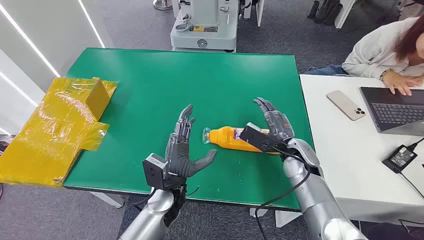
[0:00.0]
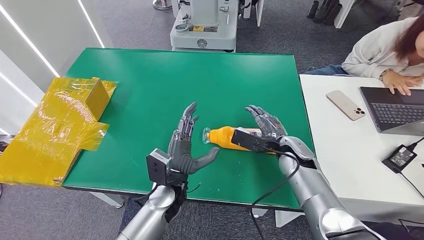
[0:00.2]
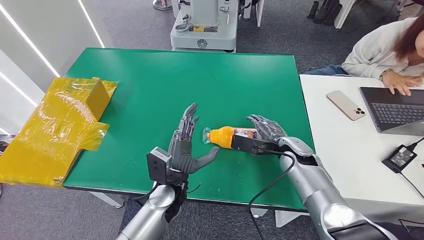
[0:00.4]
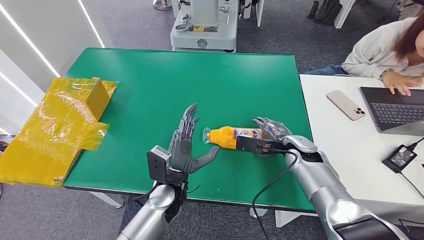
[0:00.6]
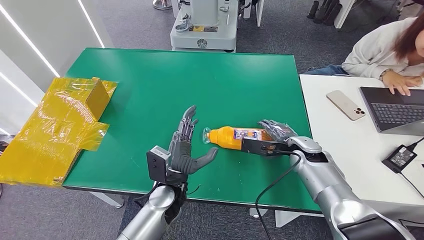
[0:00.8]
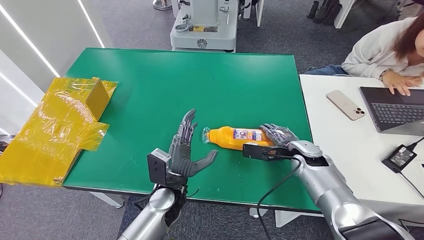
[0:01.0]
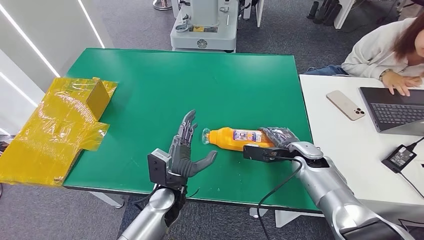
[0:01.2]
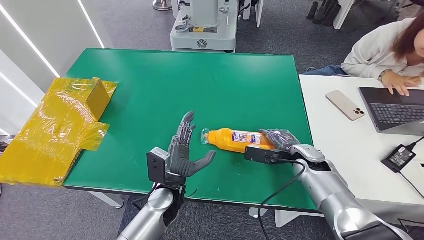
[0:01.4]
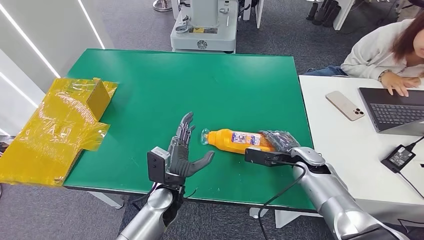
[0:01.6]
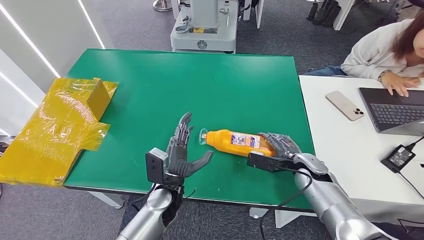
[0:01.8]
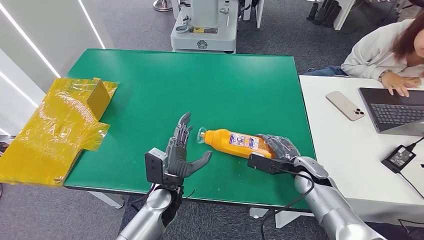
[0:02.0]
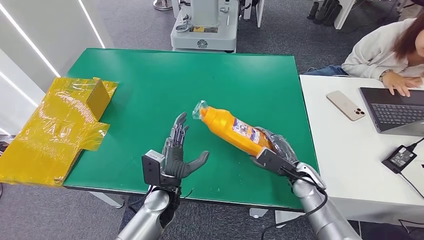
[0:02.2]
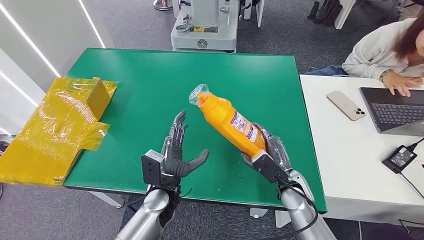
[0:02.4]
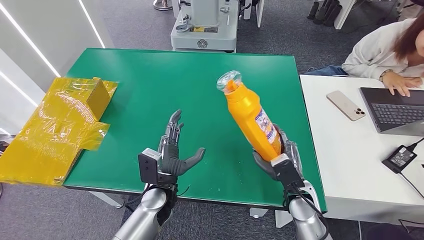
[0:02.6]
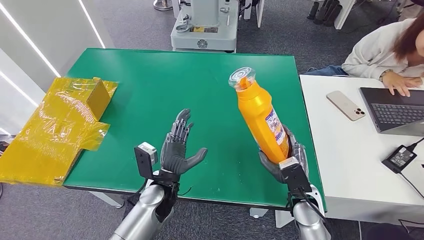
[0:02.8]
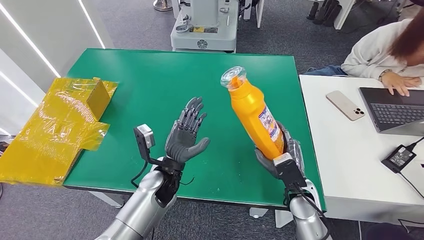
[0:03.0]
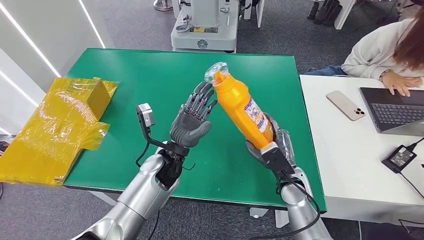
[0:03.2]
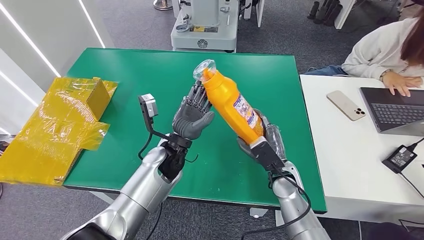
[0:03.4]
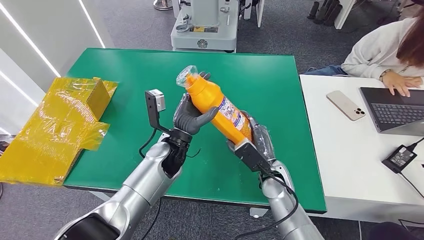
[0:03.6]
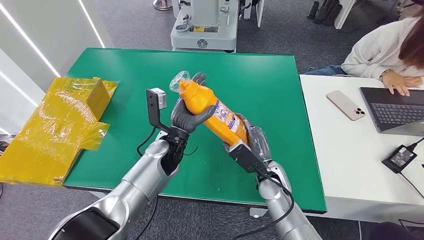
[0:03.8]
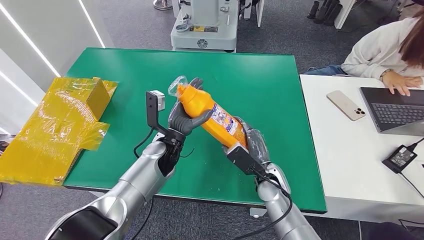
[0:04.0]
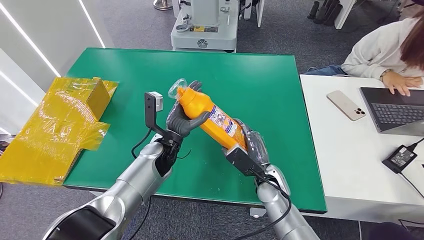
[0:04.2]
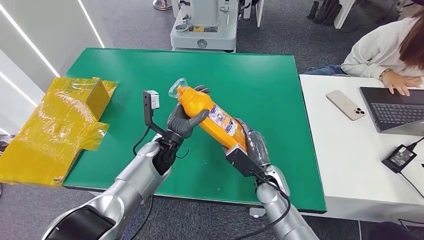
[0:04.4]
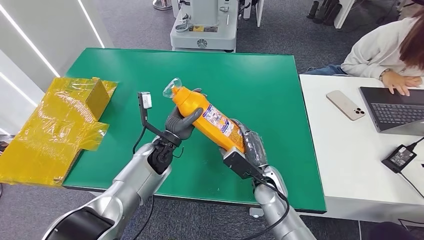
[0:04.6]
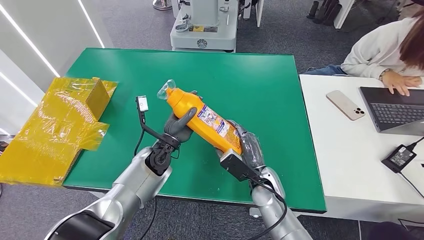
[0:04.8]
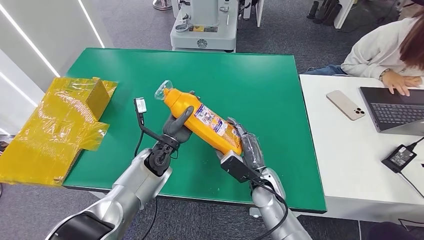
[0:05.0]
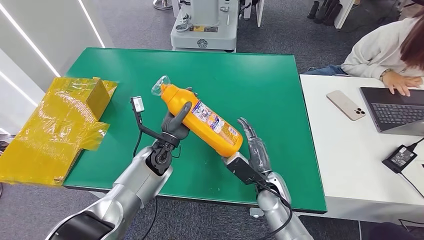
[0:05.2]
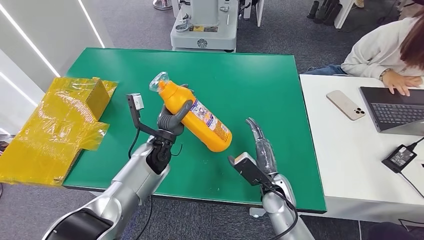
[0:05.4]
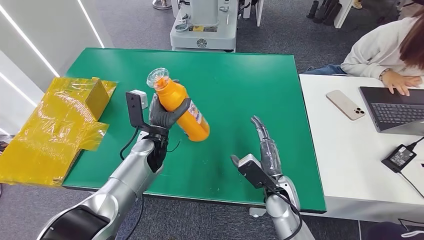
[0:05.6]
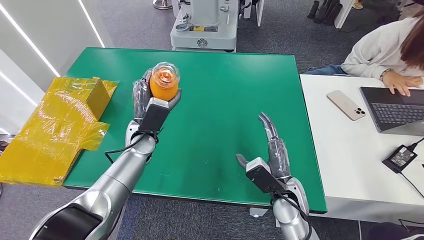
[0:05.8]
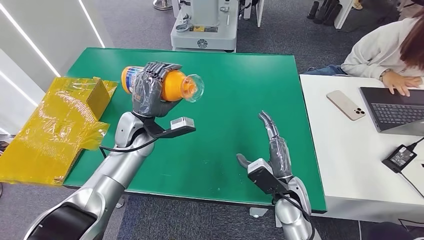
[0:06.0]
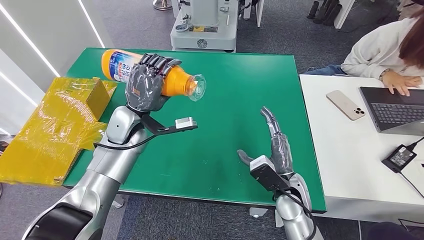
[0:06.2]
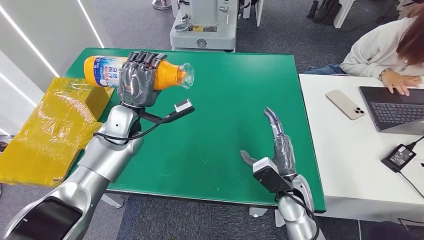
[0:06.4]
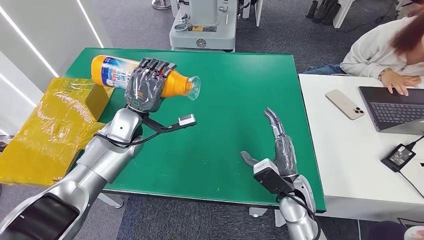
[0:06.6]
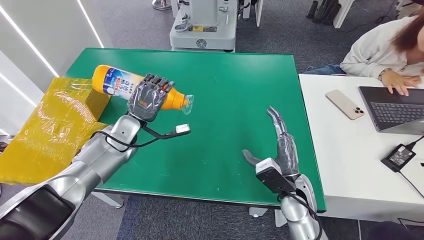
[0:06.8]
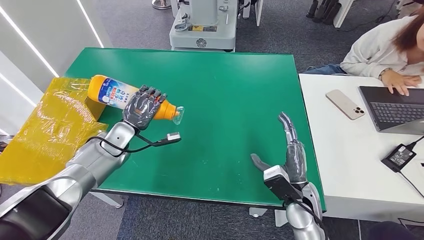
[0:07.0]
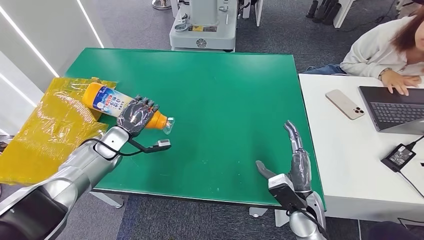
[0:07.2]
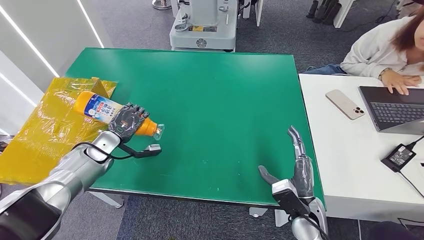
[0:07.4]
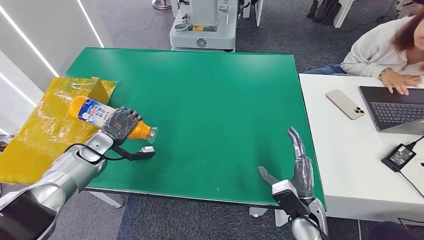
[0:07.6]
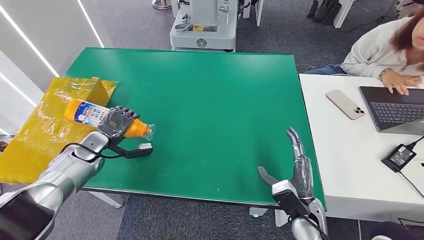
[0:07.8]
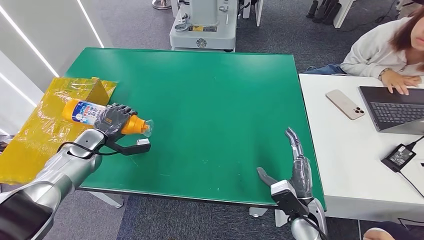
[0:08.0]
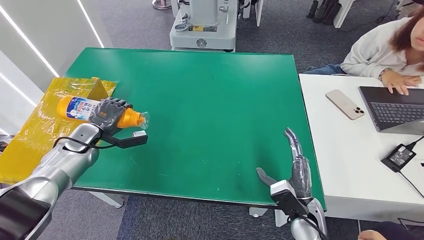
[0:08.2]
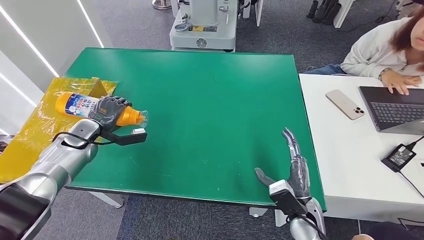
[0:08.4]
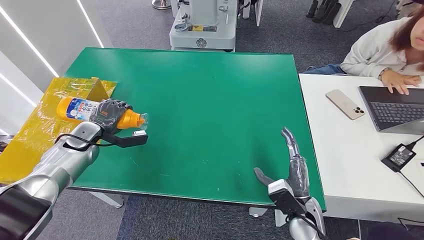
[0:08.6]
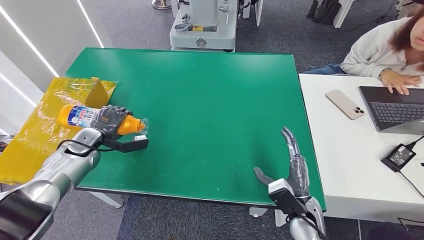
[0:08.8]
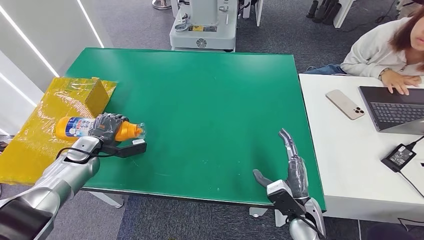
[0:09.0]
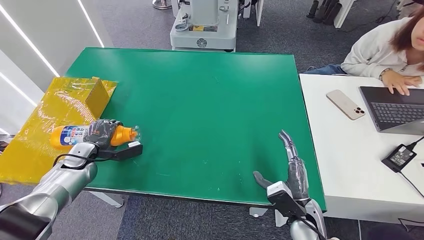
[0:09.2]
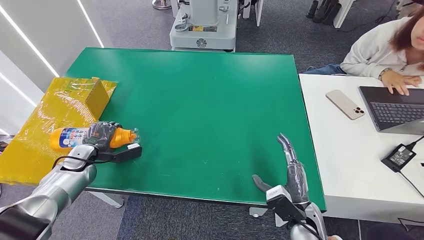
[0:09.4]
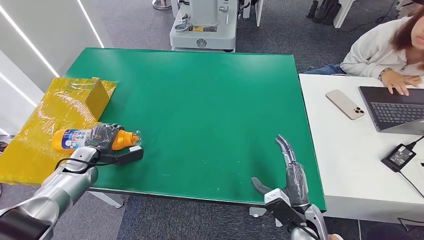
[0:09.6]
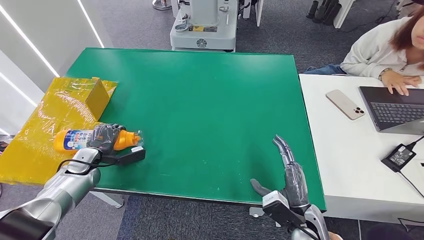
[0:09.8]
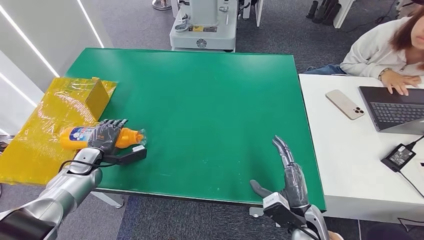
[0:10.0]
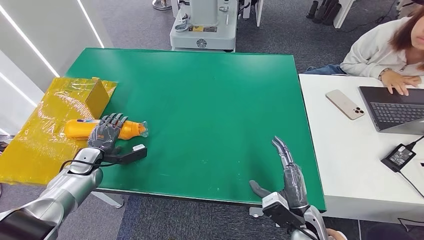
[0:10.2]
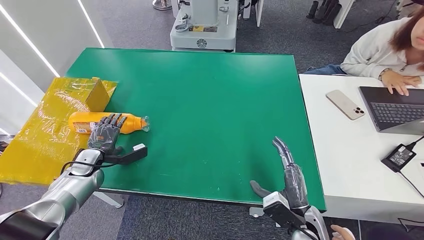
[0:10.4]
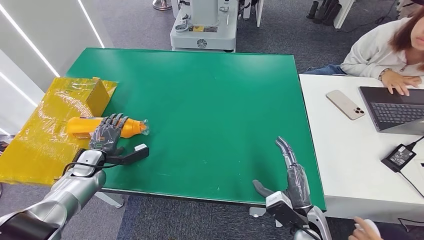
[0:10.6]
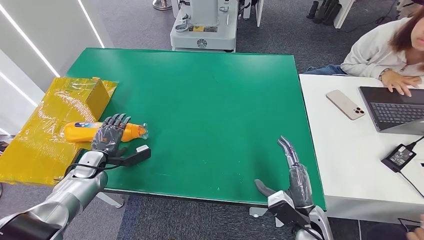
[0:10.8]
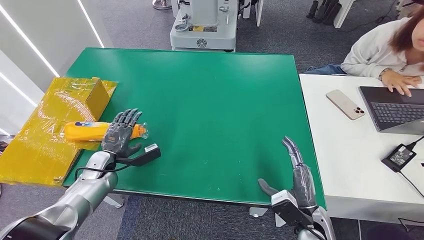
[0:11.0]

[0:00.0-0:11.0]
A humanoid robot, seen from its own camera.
Step, 0:00.0 to 0:03.0: Pick up the bottle from the table.
Step, 0:03.2 to 0:11.0: Turn the bottle to the front side.
0:01.6 to 0:03.2: The right hand travels to the left and backward by some 10 cm. Meanwhile the left hand is displaced upward and forward by approximately 10 cm.
0:07.8 to 0:09.4: The left hand changes place by roughly 5 cm.
0:09.4 to 0:11.0: The left hand heads to the right, covering roughly 5 cm.
